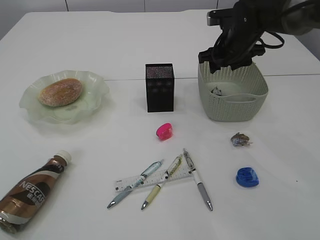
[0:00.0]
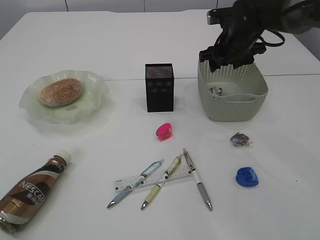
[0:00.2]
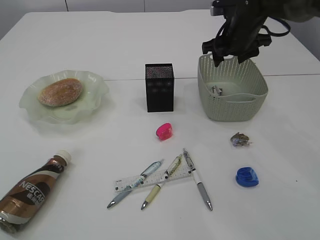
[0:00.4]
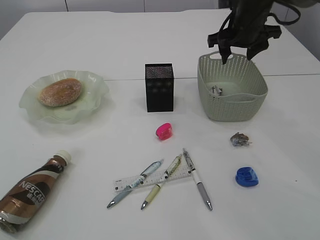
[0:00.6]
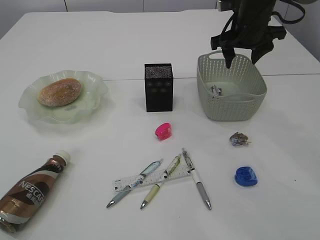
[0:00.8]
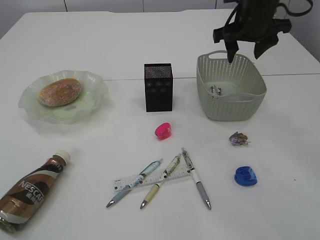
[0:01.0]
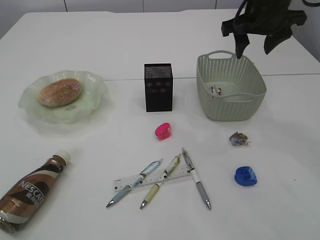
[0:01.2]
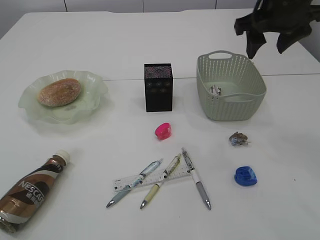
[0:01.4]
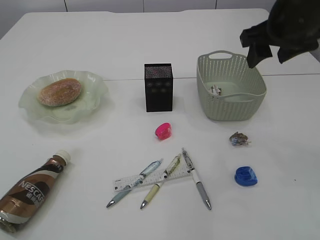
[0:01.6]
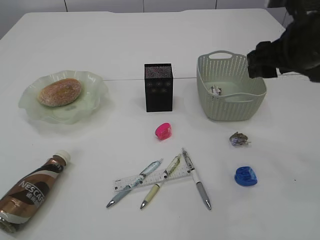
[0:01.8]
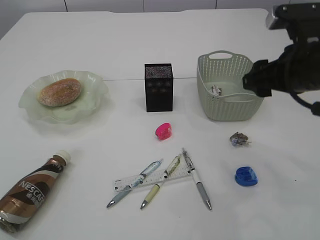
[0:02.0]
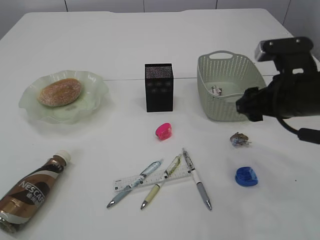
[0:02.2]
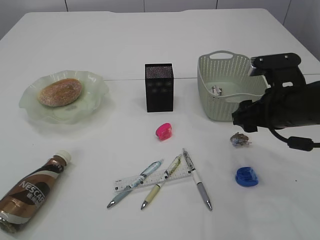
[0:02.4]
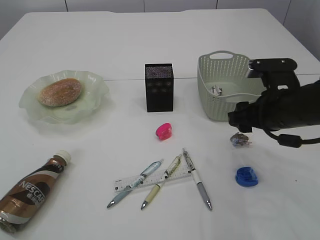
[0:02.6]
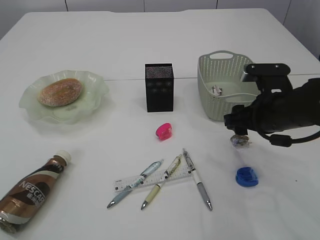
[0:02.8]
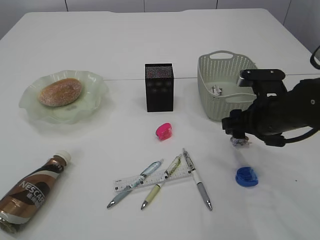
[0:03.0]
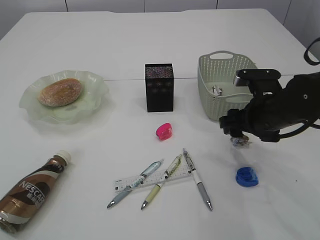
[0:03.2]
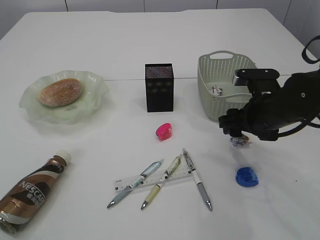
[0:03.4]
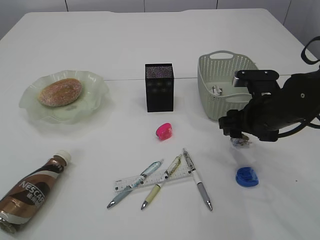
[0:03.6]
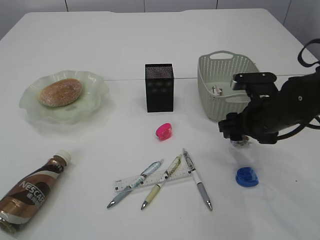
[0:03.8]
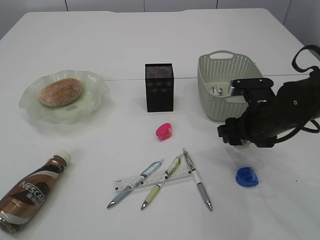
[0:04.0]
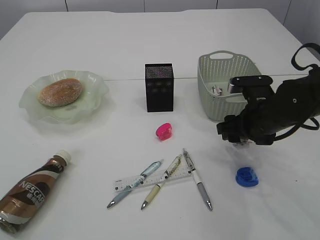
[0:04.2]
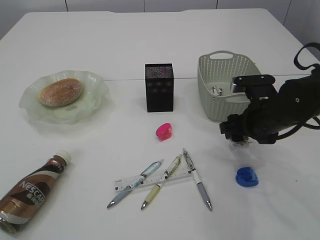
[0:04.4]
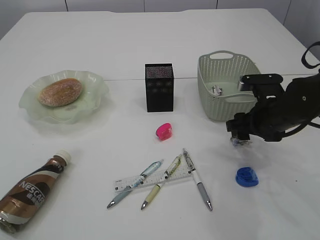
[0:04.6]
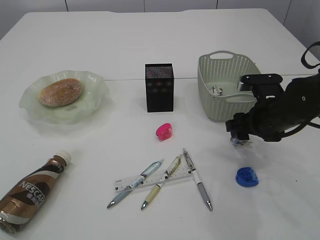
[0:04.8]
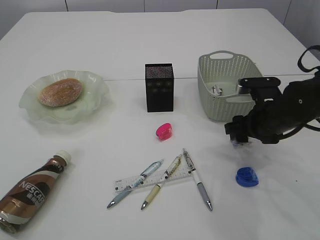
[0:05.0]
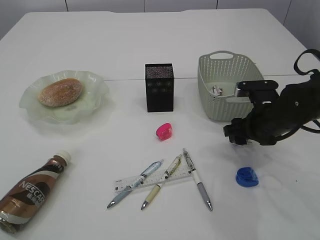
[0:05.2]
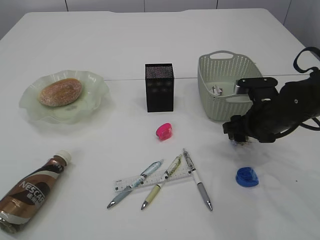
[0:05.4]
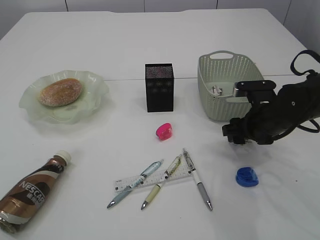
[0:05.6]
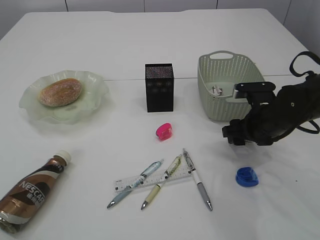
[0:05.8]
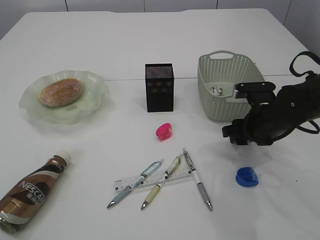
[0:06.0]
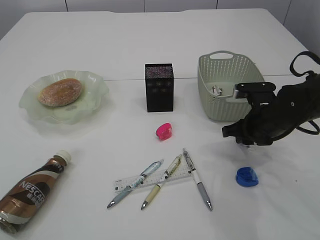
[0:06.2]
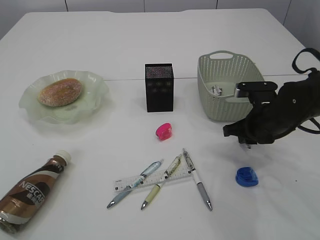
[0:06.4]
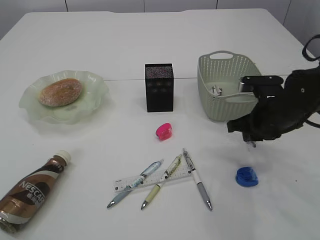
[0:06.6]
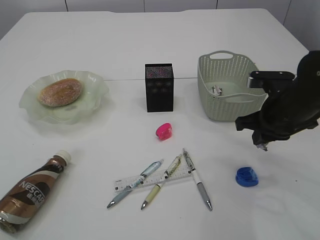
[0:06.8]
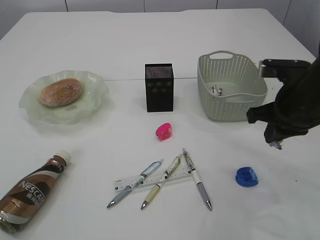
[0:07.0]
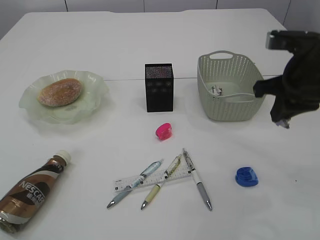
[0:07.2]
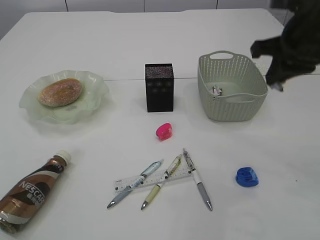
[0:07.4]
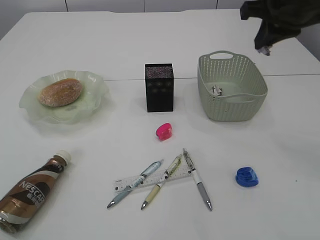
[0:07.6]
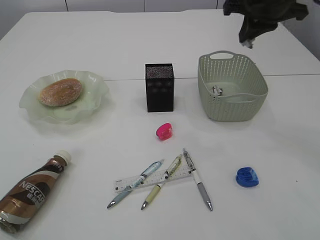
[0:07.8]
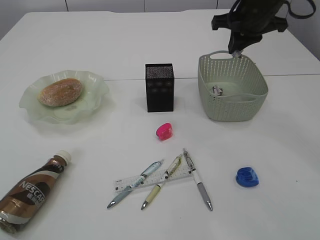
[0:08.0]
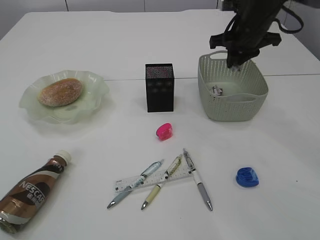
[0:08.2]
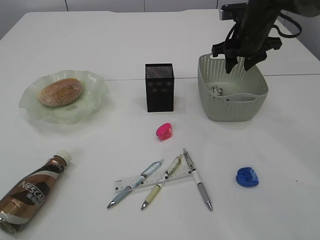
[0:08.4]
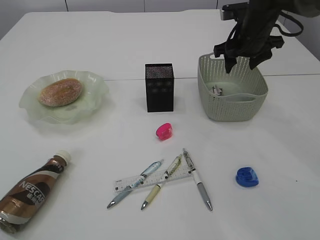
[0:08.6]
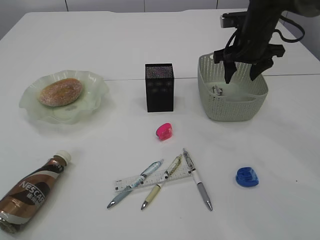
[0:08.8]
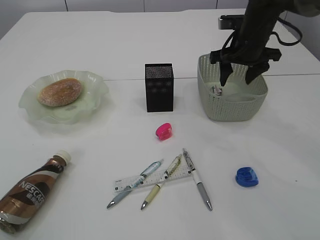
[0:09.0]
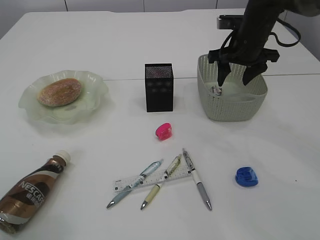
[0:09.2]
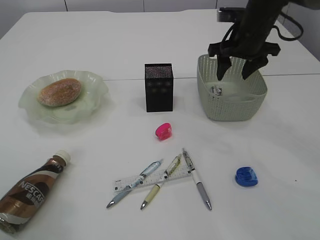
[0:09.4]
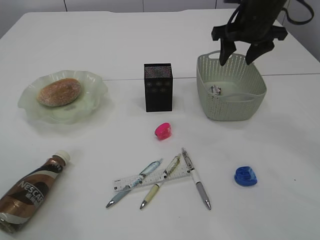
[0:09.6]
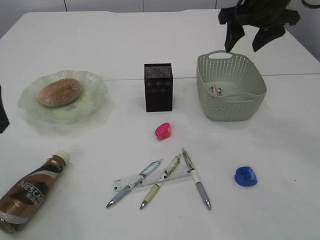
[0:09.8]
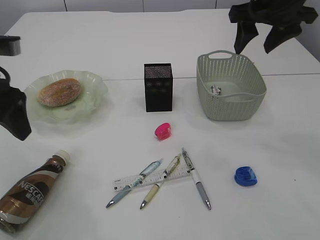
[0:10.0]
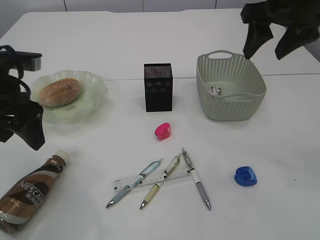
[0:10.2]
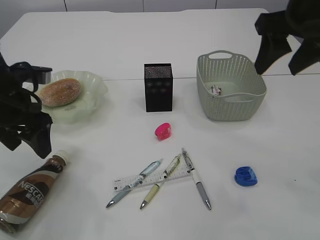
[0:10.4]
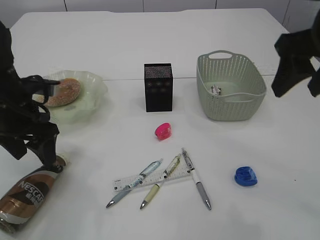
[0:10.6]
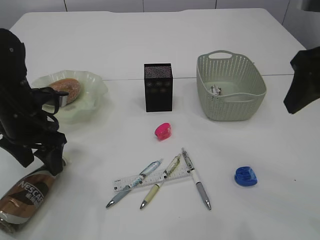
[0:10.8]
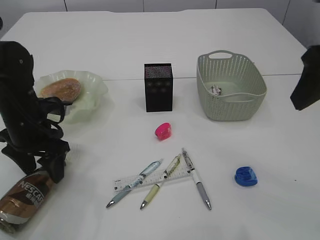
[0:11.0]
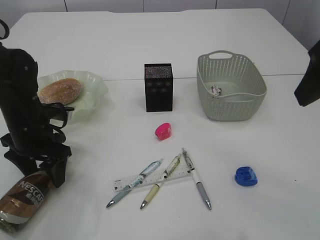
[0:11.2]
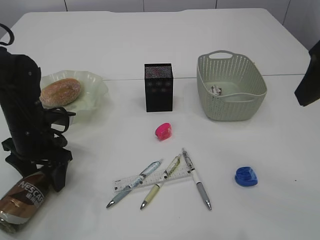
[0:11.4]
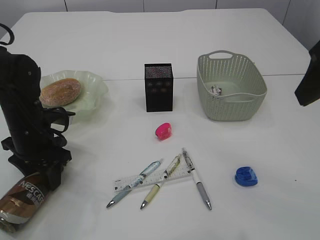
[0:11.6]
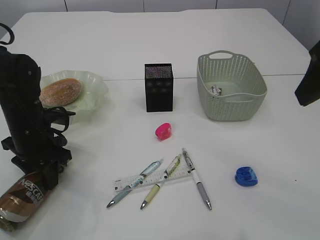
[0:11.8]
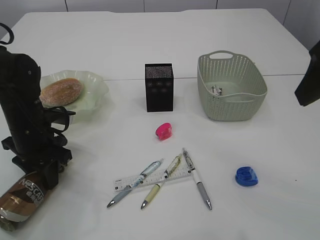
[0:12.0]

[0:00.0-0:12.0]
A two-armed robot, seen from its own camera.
Step, 0:00.8 to 0:06.8: Pick up the waste paper.
Step, 0:07.0 to 0:09.6: Place the waste paper in the basket.
0:00.0 to 0:01.6: The right gripper moves backward and upward, some 15 cm.
0:01.6 to 0:03.0: The right gripper shifts roughly 15 cm downward.
0:03.0 to 0:06.0: The grippers make only small movements.
0:06.0 to 0:07.6: The right gripper is displaced upward by approximately 25 cm, and closes up.
0:07.6 to 0:09.0: The right gripper moves downward and forward, approximately 15 cm, and opens up.
0:09.0 to 0:10.4: The left gripper is displaced downward and forward by approximately 20 cm, while the right gripper heads backward and upward, covering approximately 20 cm.
0:10.4 to 0:12.0: The left gripper heads downward, covering some 10 cm, and closes its fingers. The right gripper travels backward by about 10 cm.

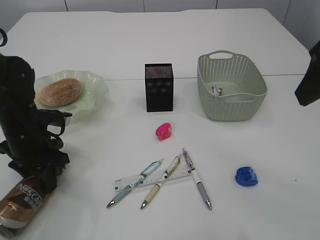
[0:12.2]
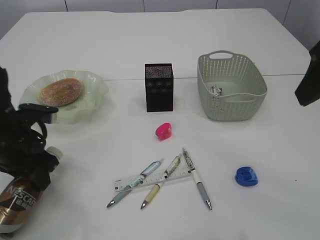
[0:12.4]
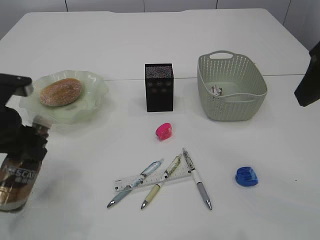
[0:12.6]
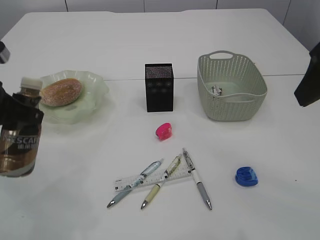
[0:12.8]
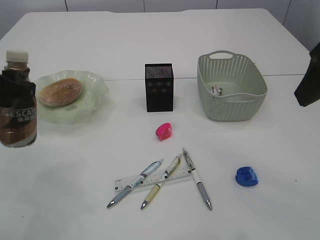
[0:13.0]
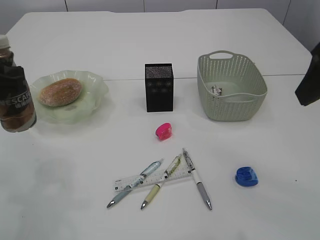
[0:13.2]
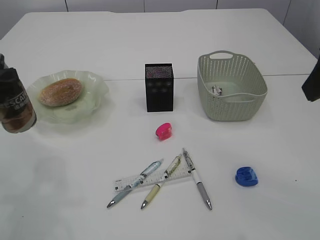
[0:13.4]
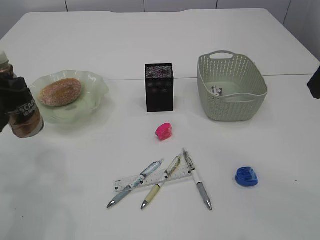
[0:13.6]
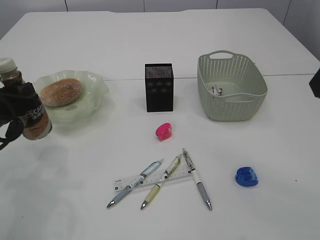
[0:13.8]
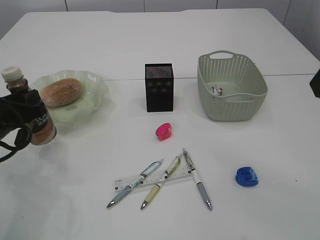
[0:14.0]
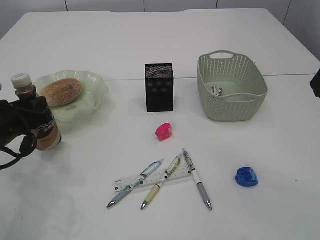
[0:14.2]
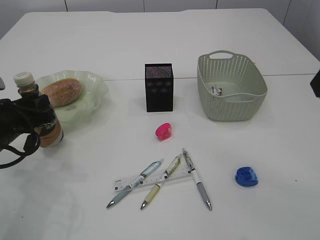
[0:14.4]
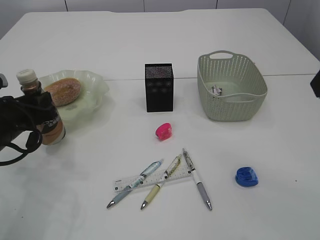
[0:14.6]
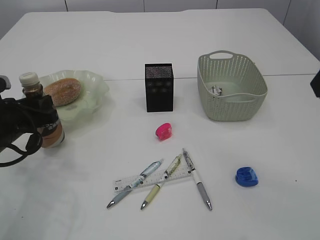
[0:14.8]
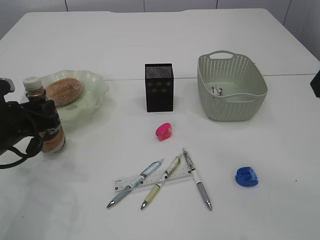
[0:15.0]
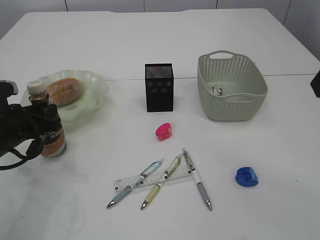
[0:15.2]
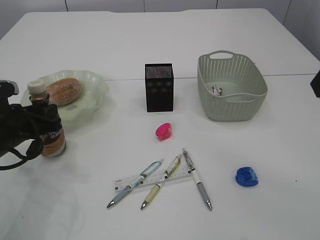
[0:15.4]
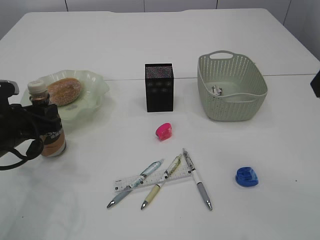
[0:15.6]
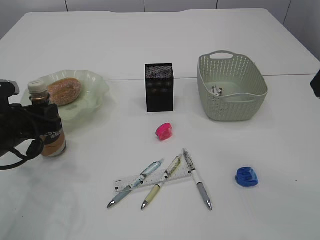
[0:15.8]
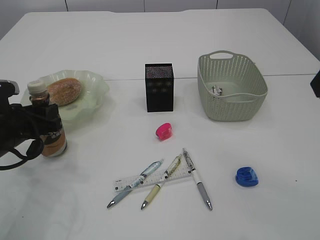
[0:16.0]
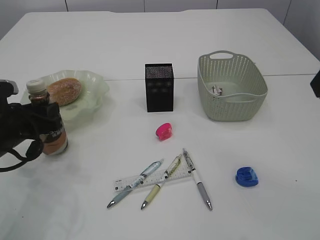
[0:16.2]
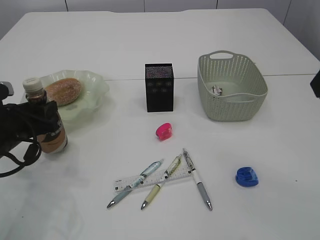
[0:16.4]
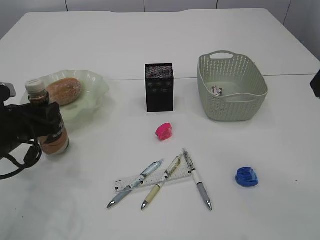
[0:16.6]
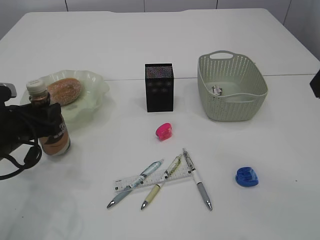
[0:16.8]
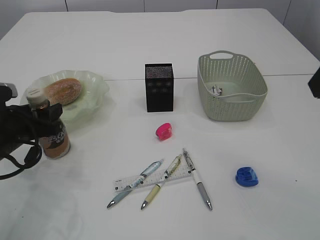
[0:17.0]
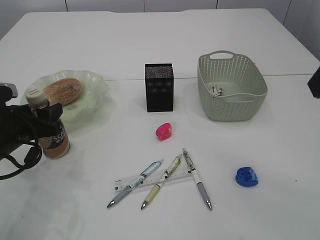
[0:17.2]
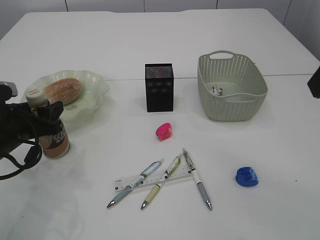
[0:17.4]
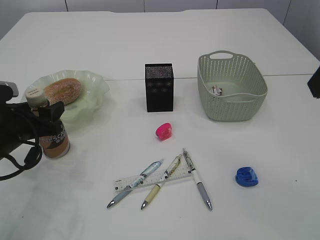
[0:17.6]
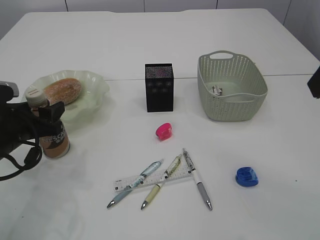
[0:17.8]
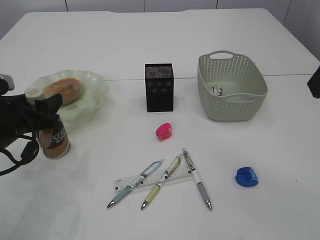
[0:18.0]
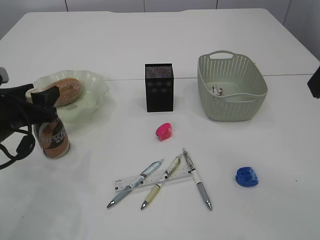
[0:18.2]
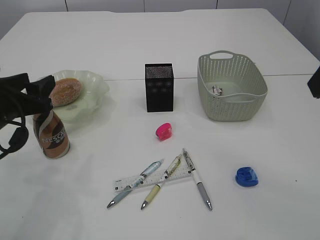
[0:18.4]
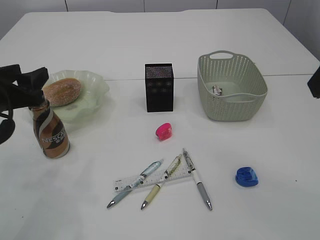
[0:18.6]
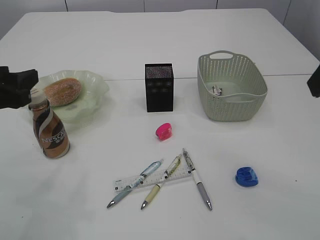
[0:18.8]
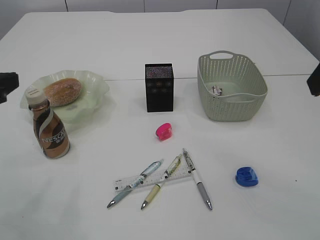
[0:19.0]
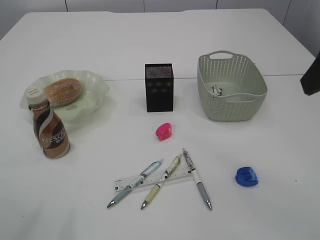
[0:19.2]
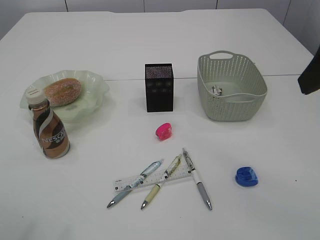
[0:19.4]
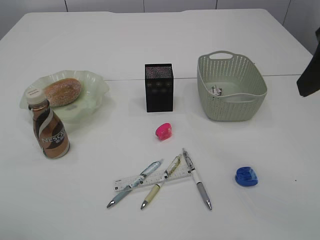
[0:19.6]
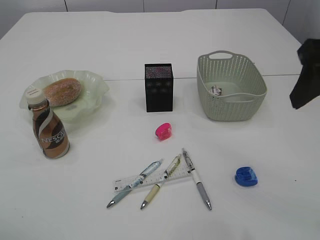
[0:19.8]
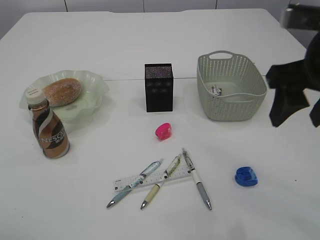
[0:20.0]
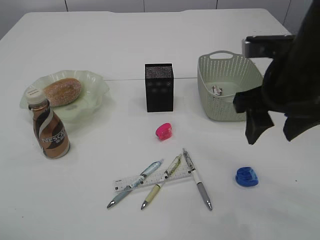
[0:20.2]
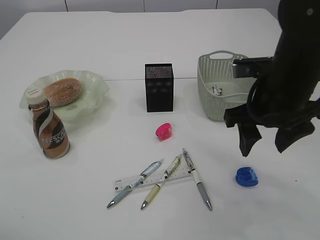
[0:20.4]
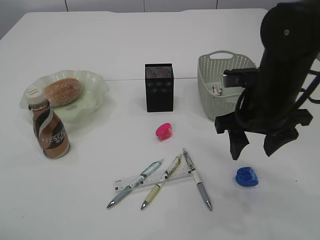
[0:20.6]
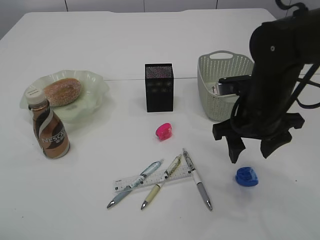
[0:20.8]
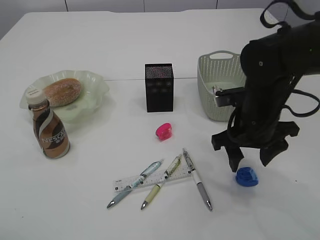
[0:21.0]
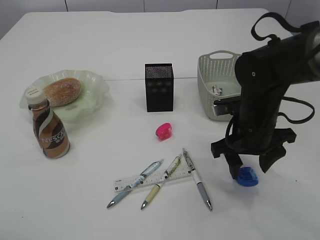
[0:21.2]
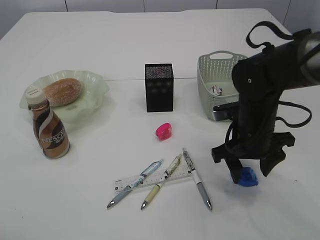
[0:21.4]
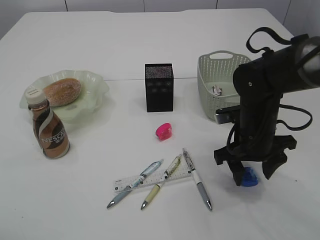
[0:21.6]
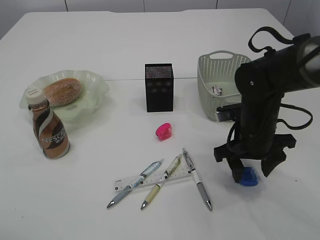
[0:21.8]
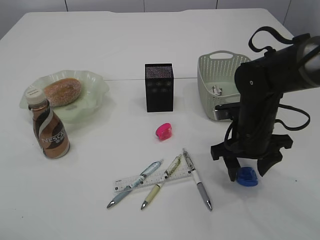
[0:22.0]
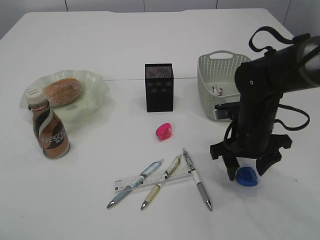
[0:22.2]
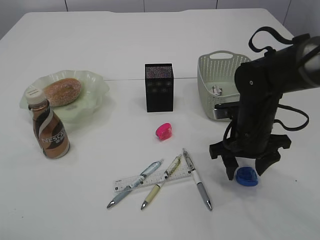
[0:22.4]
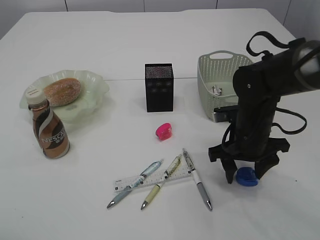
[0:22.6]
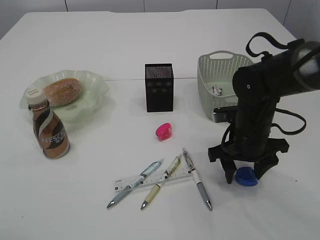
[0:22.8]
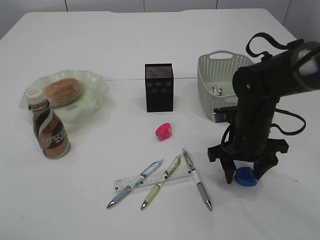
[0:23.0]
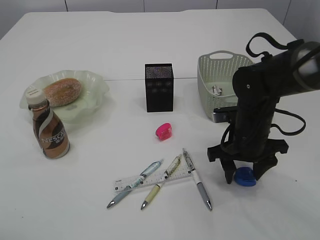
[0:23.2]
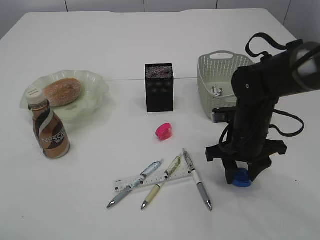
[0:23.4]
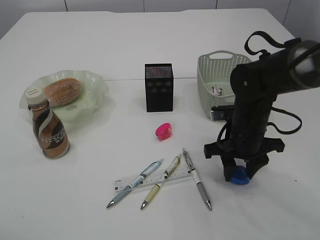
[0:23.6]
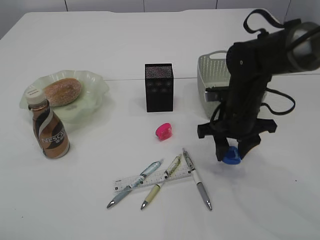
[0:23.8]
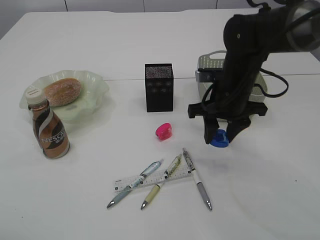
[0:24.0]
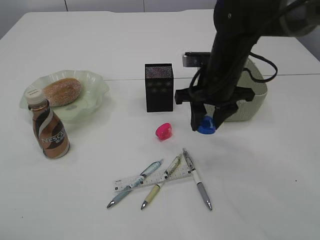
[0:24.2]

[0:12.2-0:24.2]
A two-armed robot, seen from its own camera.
Step, 0:12.8 to 0:18.8: Place the bottle.
Step, 0:19.0 to 0:23.8: Pick up the blue pencil sharpener.
0:13.8 to 0:15.2: The left gripper changes place by approximately 5 cm.
0:15.2 to 0:18.2: There are only small adjustments of the grippers.
0:18.2 to 0:19.8: The left gripper shifts some 25 cm upward and backward.
0:19.8 to 0:21.2: The right gripper goes approximately 20 cm downward and forward.
0:21.2 to 0:22.6: The grippers move only a little.
0:22.6 to 0:24.2: The right gripper travels upward by roughly 10 cm.
